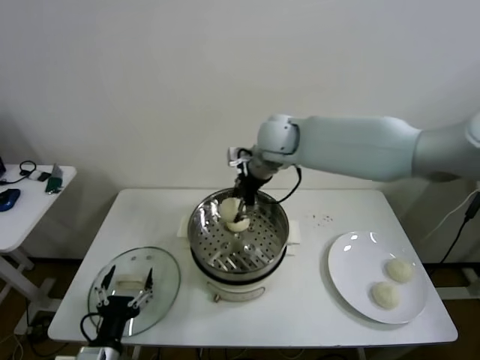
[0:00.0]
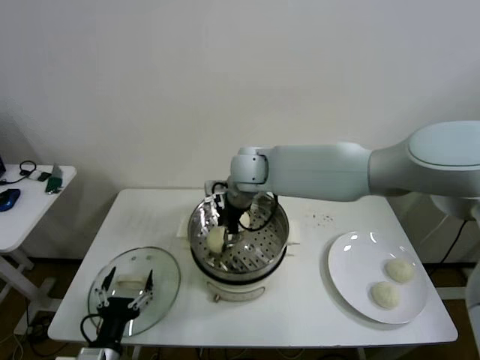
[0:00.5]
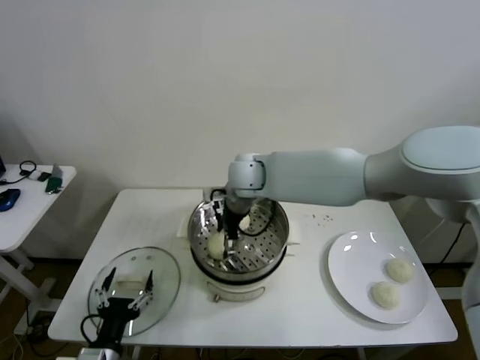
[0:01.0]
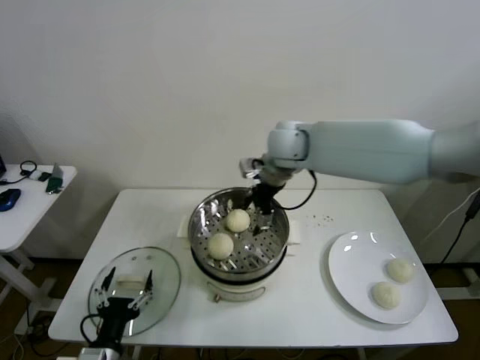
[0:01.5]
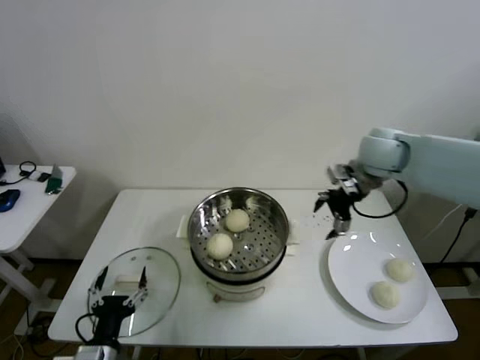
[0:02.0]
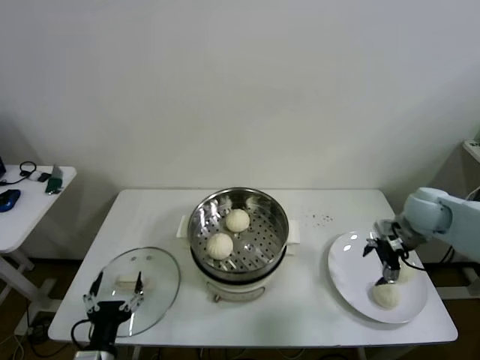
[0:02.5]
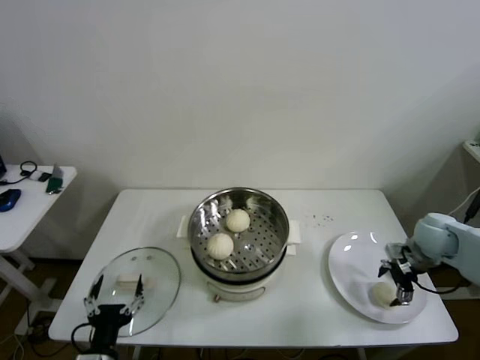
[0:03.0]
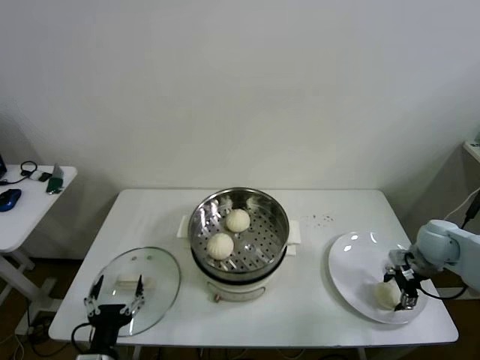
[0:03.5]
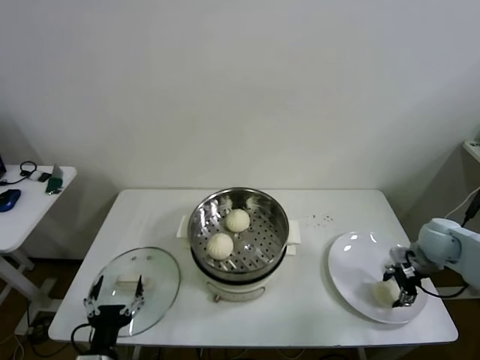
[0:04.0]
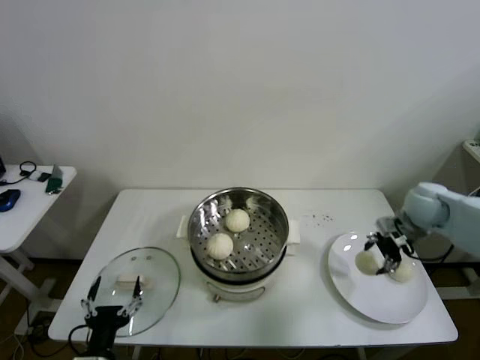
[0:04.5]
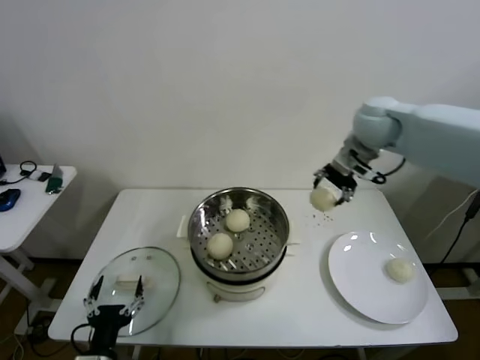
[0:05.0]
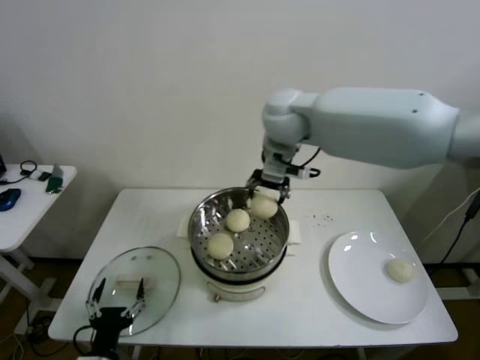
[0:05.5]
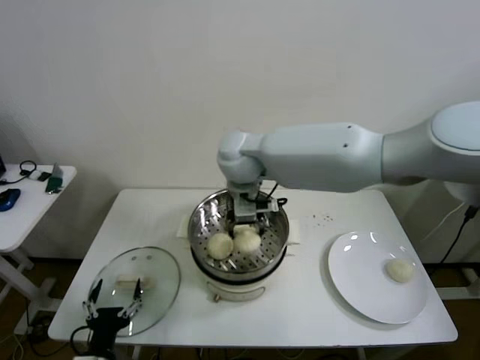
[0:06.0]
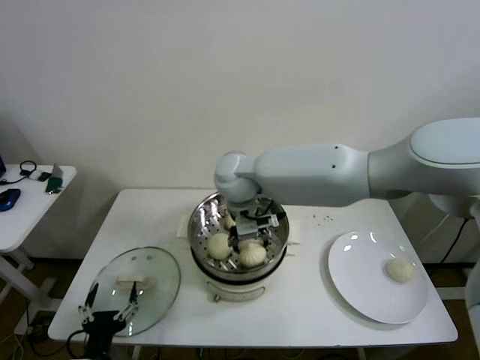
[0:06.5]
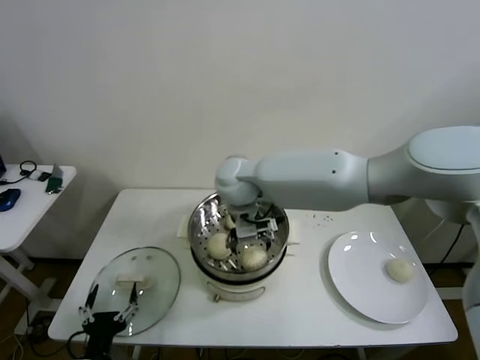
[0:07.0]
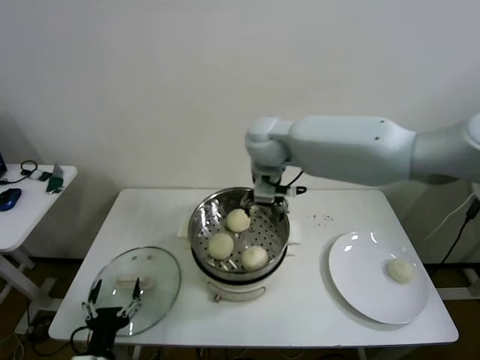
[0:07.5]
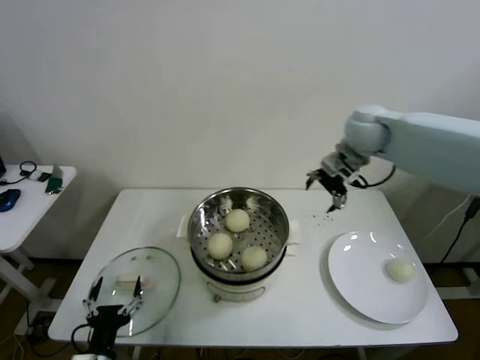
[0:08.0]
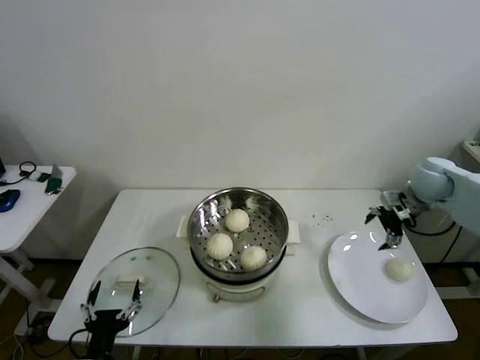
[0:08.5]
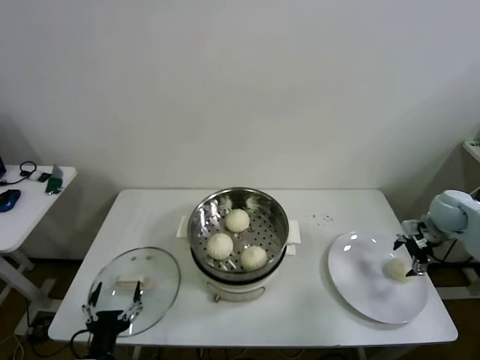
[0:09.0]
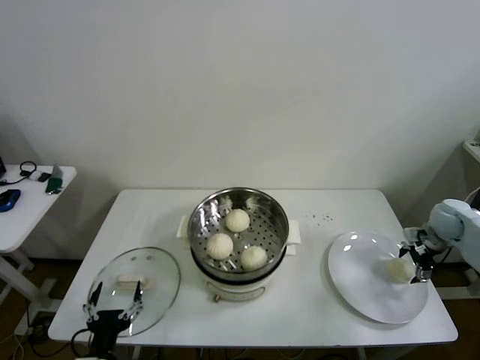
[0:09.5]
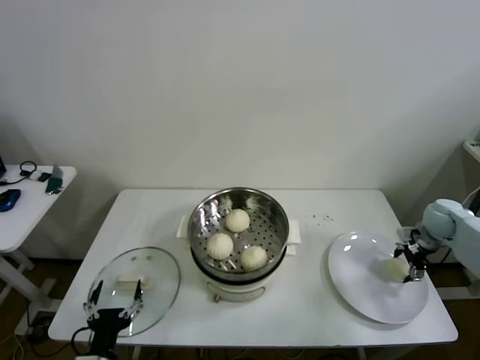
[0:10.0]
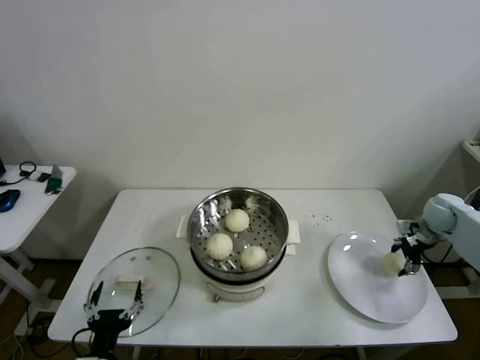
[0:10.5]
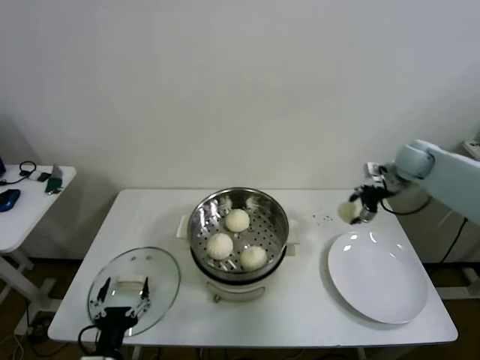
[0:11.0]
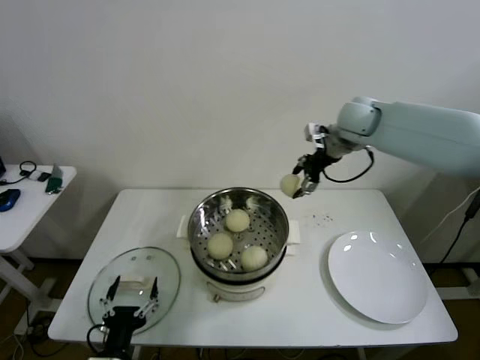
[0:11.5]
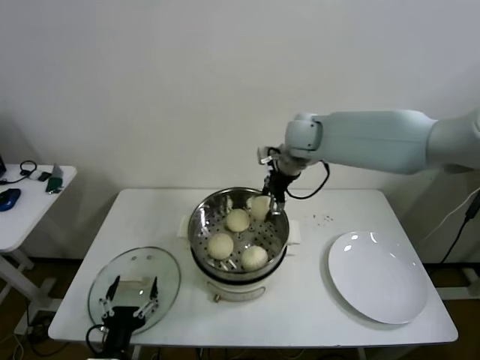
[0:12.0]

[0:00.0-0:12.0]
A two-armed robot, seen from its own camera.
Step, 0:01.0 to 0:03.5: Grasp the baozi in the plate with right gripper.
Step, 0:04.0 to 0:06.5: Place the baozi on the steamer with right gripper.
Step, 0:07.0 to 0:09.5: Grasp the baozi in the plate with right gripper.
0:00.0 to 0:02.0: The right gripper moves to the right, some 25 cm, and opens up.
0:02.0 to 0:04.0: The right gripper moves downward, to the right and backward, roughly 25 cm, and closes its fingers.
0:04.0 to 0:06.0: The right gripper shifts approximately 50 cm to the left and upward.
0:06.0 to 0:08.0: The right gripper moves to the right, approximately 30 cm, and opens up.
0:08.0 to 0:10.0: The right gripper heads to the right and downward, covering roughly 35 cm, and closes up.
0:10.0 to 0:12.0: The right gripper shifts approximately 40 cm to the left and upward, and closes.

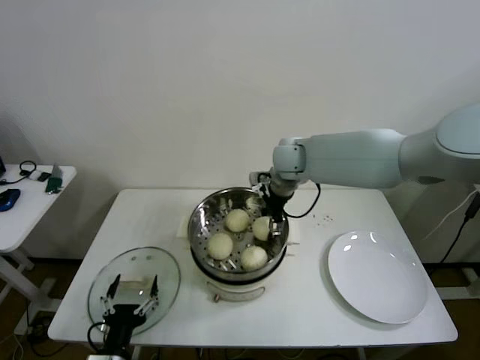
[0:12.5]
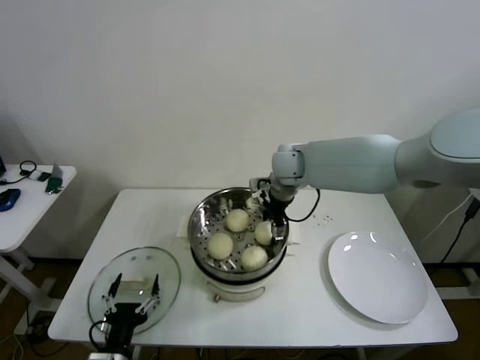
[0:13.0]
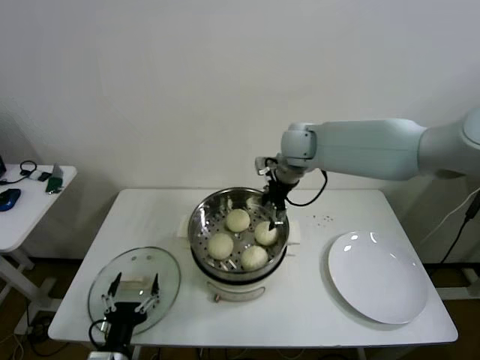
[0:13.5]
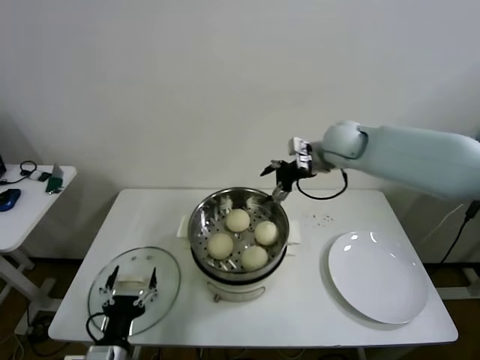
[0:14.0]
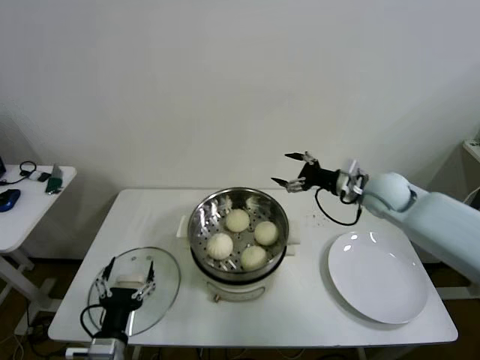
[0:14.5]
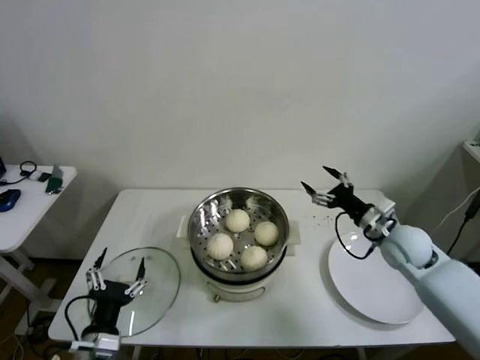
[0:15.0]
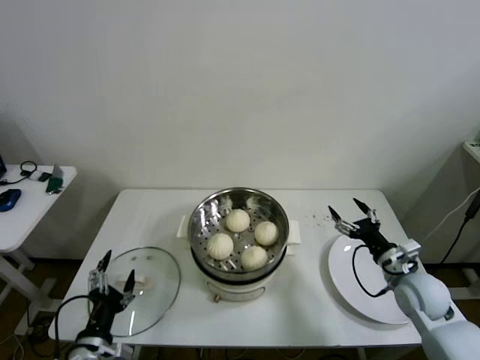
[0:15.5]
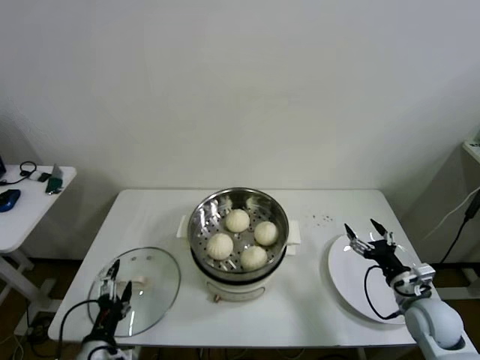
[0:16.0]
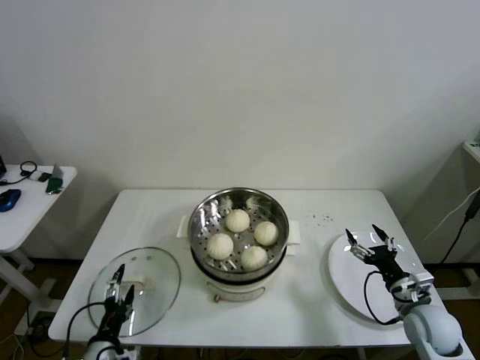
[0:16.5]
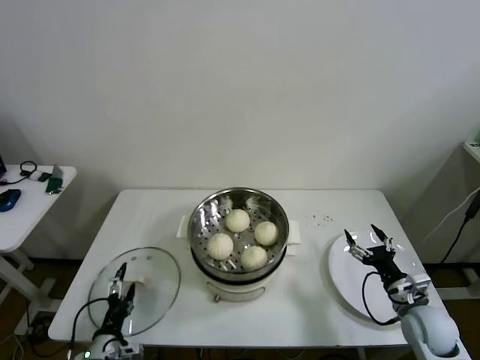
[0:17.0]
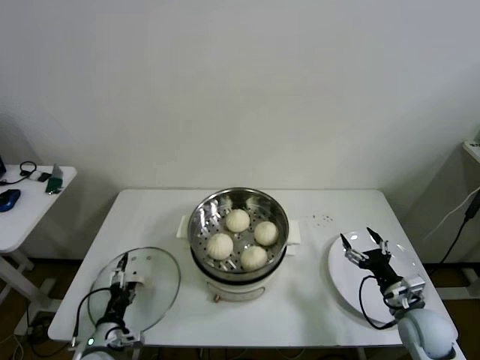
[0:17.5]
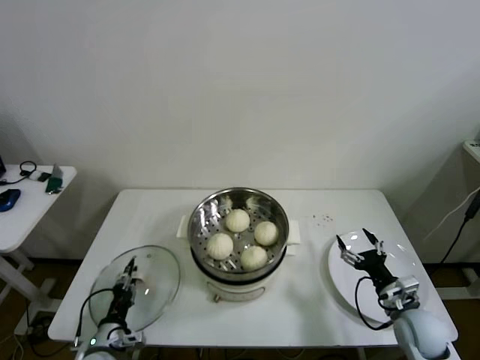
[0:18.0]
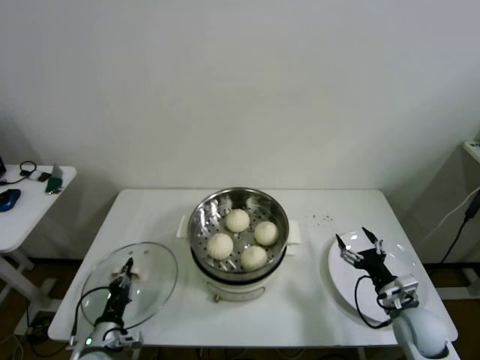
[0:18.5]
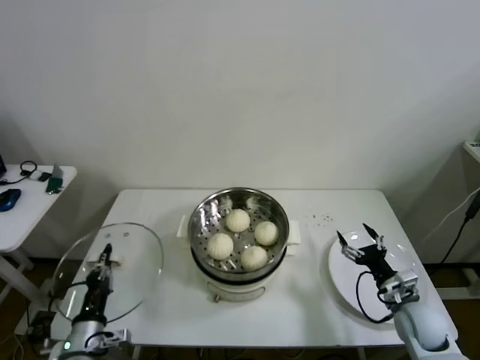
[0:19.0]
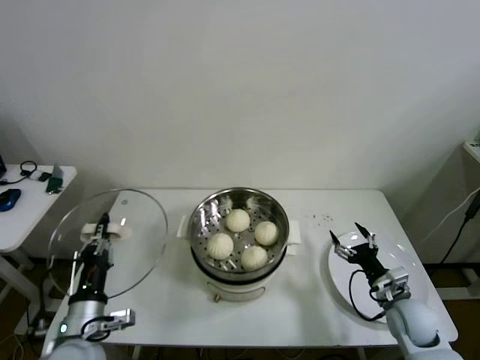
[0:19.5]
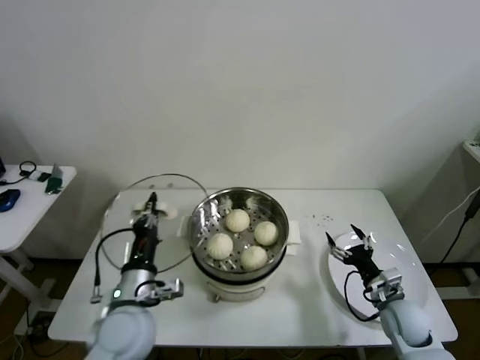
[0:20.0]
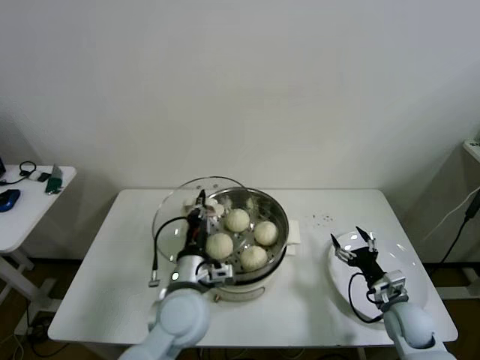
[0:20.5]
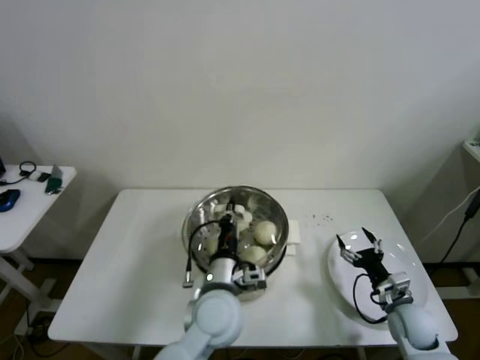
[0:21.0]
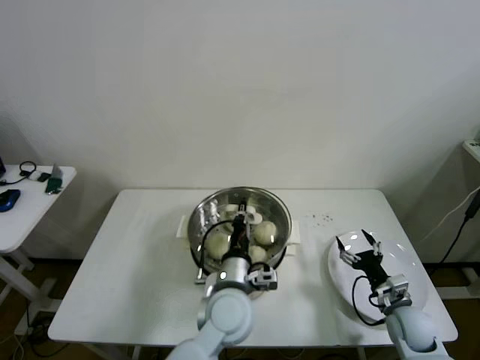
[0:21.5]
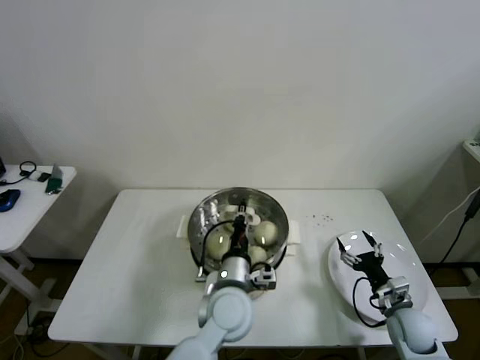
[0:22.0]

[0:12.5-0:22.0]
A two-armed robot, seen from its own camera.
Step, 0:13.0 to 0:18.0: Grasp the pot lid with left gripper.
0:12.5 to 0:14.5: The right gripper shifts roughly 20 cm to the right, and opens.
0:14.5 to 0:16.5: The right gripper is displaced backward and downward by some 30 cm, while the left gripper moves downward, approximately 5 cm.
0:16.5 to 0:18.0: The left gripper shifts about 5 cm forward and downward, and closes.
0:18.0 to 0:20.0: The left gripper goes roughly 20 cm upward and to the right, and closes.
0:20.0 to 0:22.0: The left gripper goes approximately 20 cm to the right.

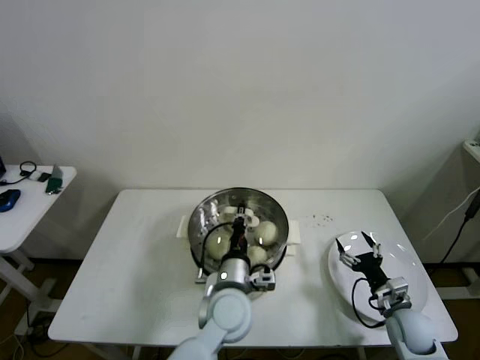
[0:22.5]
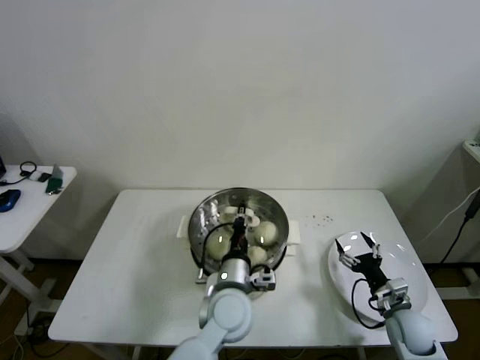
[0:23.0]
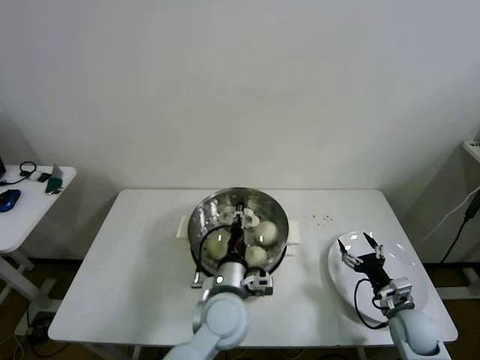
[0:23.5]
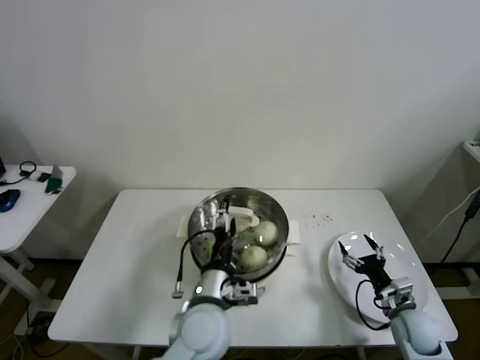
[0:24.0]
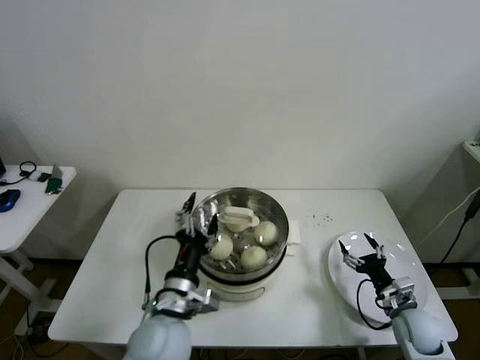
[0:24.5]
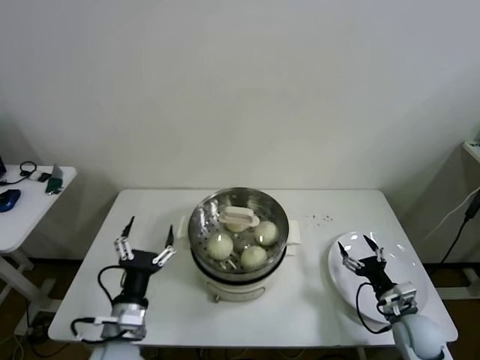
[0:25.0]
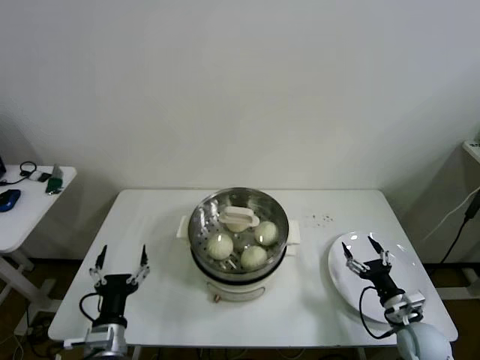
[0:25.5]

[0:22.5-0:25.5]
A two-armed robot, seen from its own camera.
0:22.5 to 0:24.0: The left gripper shifts by about 5 cm, and opens.
0:24.0 to 0:25.5: The left gripper moves to the left and backward, approximately 20 cm.
